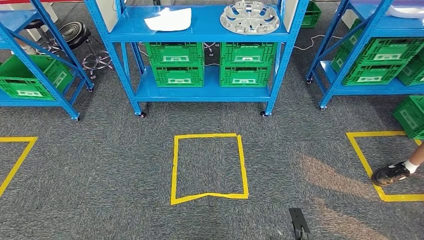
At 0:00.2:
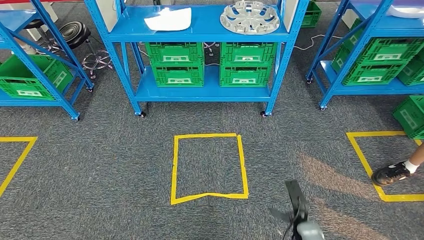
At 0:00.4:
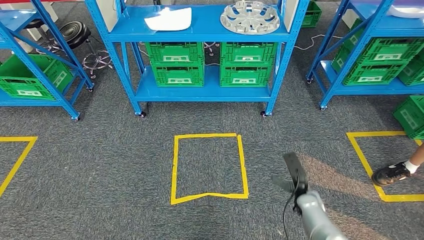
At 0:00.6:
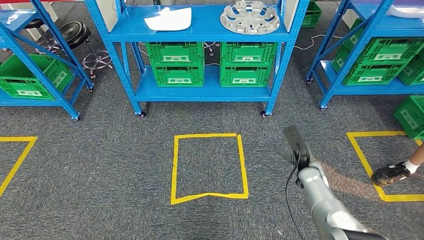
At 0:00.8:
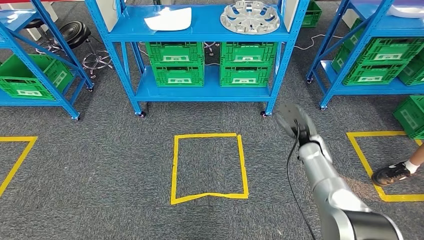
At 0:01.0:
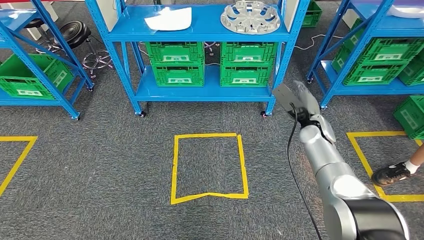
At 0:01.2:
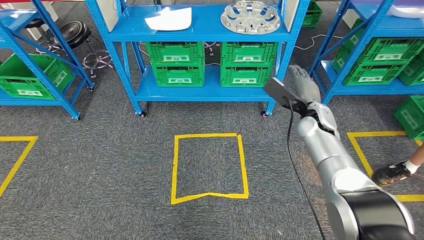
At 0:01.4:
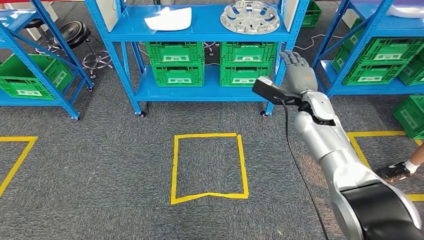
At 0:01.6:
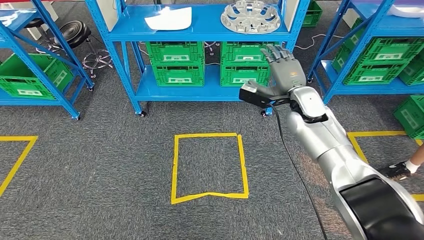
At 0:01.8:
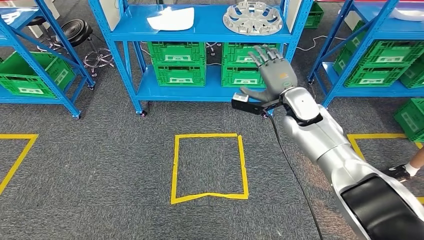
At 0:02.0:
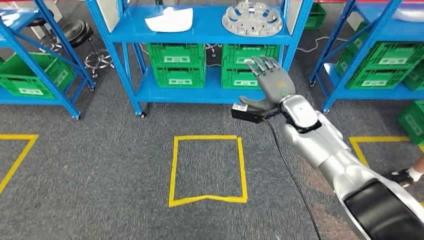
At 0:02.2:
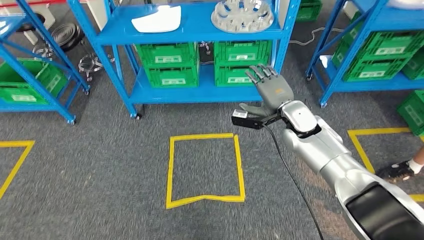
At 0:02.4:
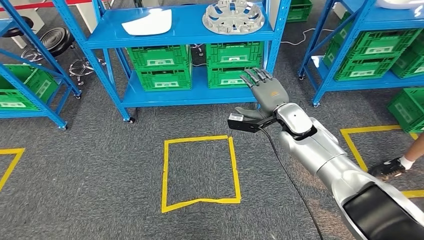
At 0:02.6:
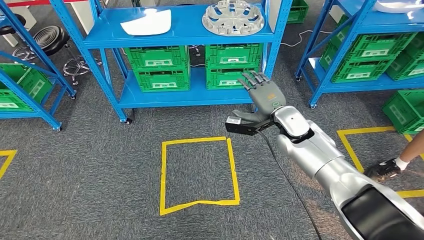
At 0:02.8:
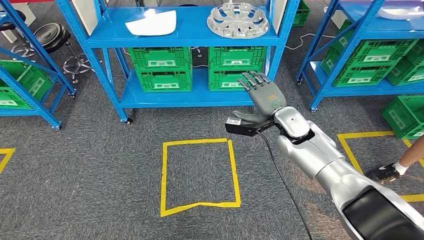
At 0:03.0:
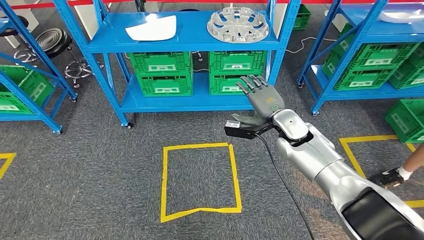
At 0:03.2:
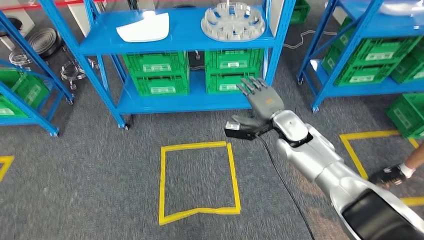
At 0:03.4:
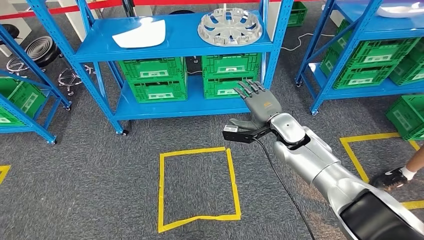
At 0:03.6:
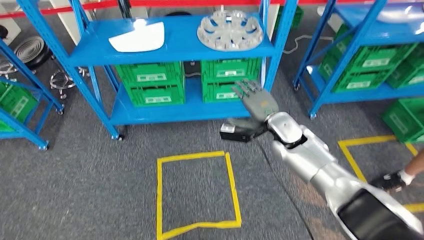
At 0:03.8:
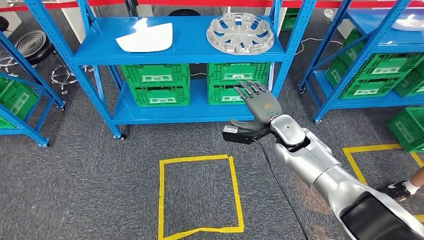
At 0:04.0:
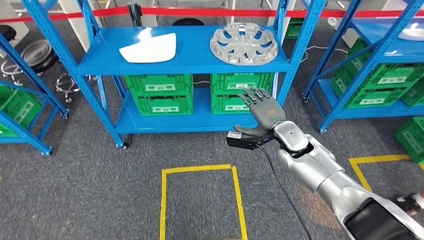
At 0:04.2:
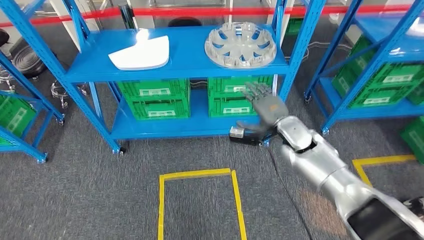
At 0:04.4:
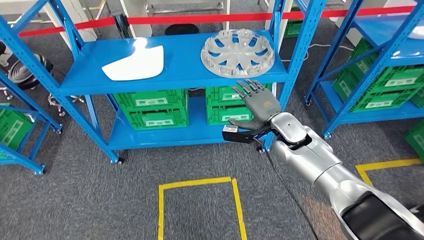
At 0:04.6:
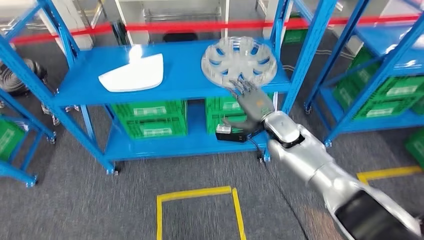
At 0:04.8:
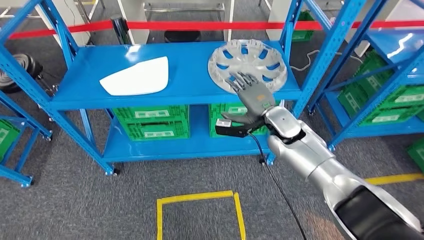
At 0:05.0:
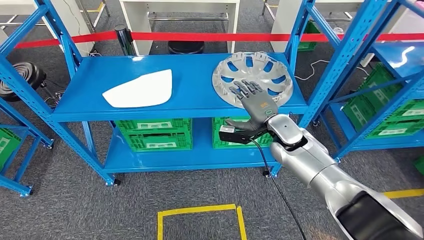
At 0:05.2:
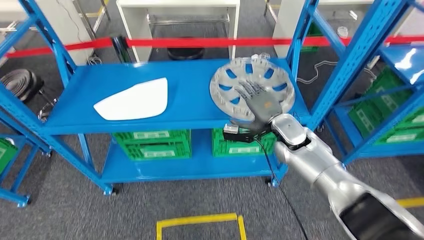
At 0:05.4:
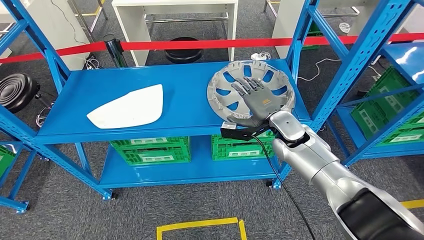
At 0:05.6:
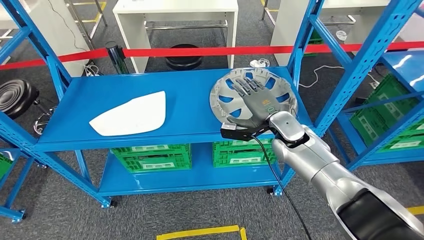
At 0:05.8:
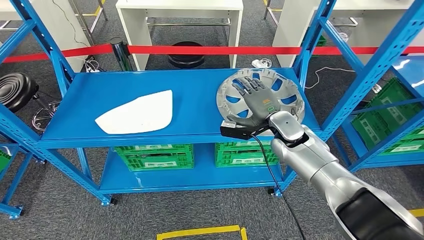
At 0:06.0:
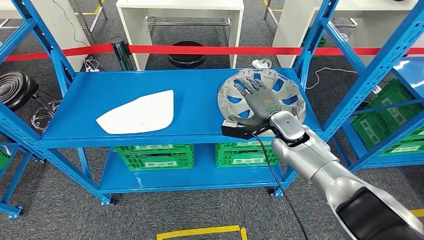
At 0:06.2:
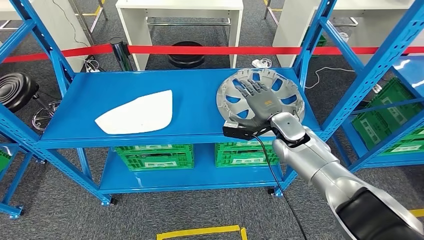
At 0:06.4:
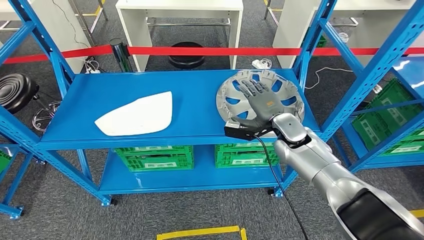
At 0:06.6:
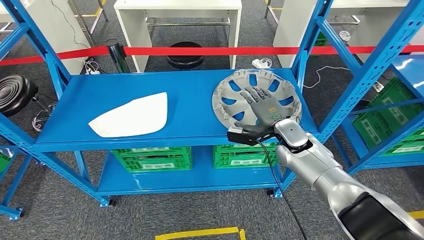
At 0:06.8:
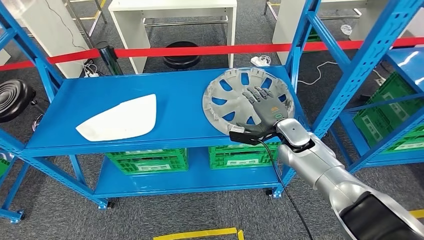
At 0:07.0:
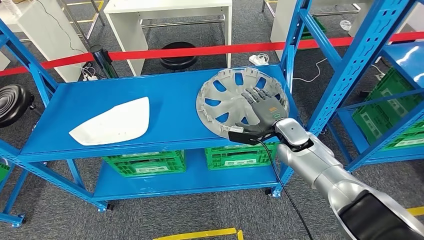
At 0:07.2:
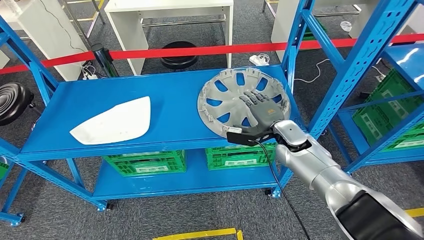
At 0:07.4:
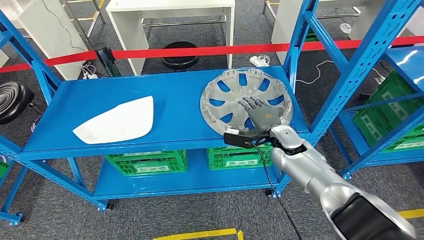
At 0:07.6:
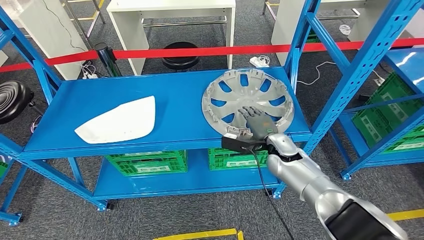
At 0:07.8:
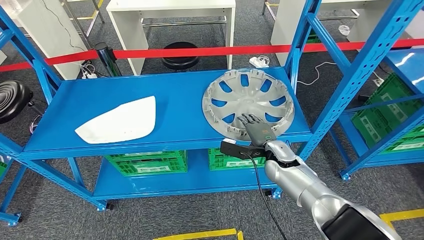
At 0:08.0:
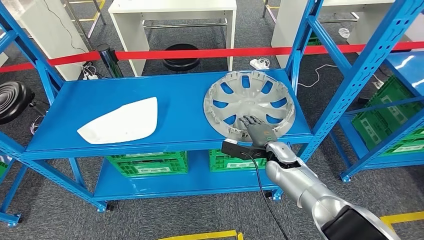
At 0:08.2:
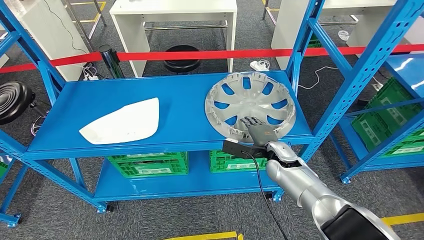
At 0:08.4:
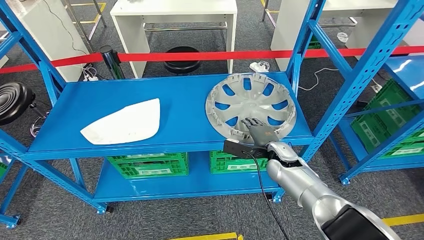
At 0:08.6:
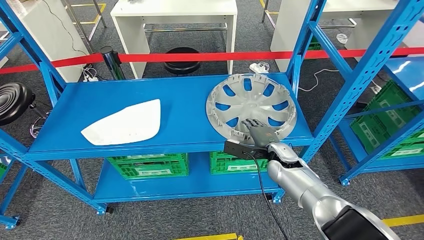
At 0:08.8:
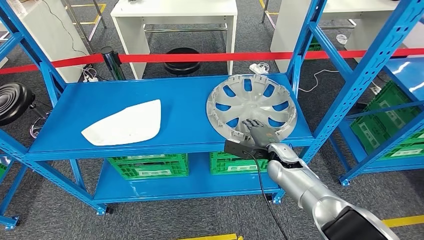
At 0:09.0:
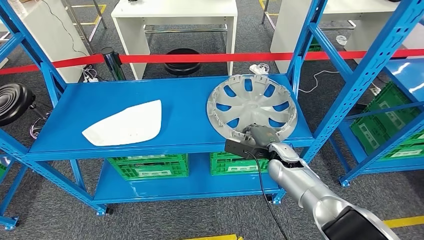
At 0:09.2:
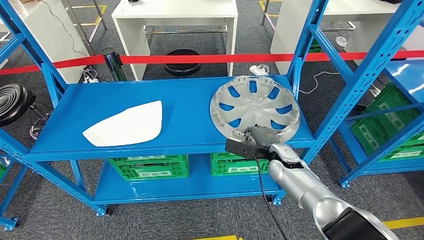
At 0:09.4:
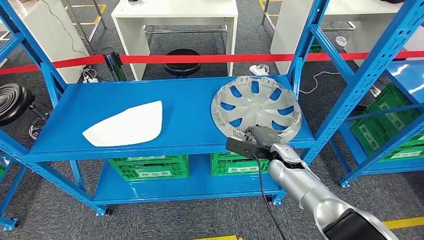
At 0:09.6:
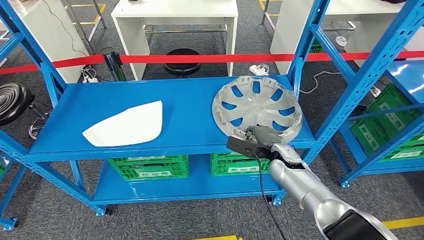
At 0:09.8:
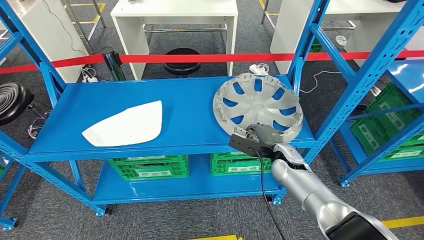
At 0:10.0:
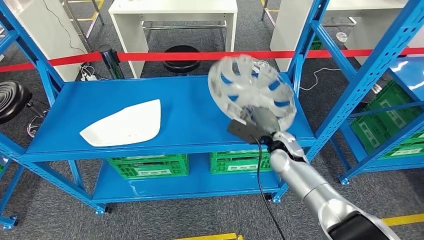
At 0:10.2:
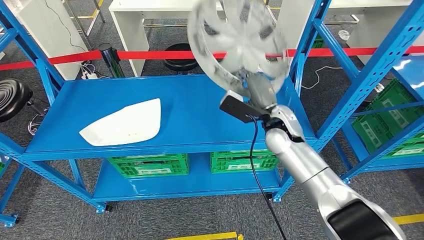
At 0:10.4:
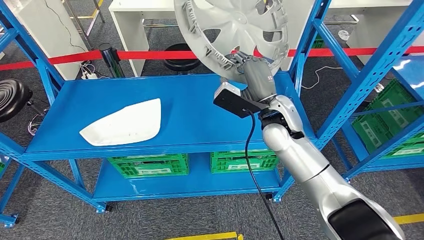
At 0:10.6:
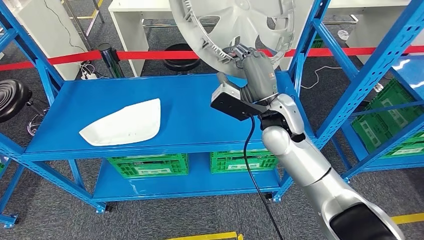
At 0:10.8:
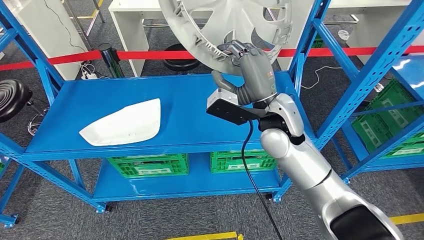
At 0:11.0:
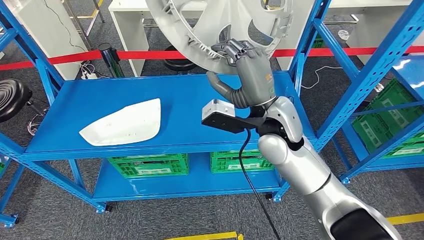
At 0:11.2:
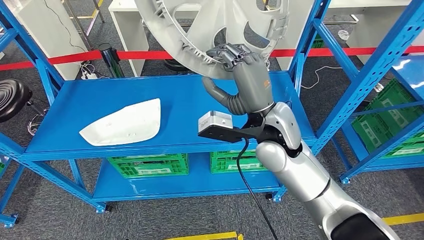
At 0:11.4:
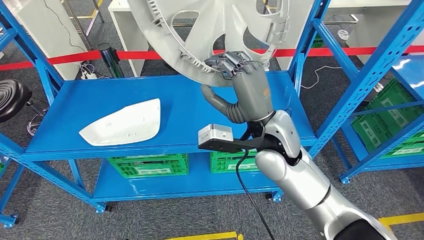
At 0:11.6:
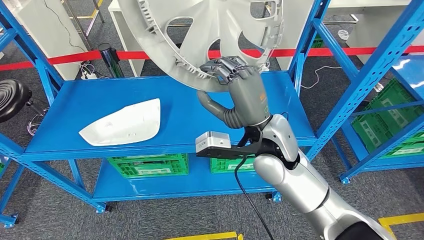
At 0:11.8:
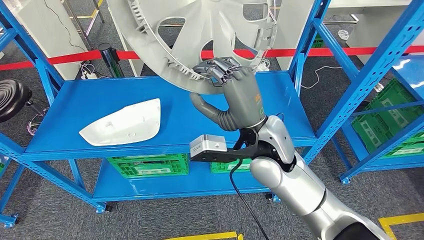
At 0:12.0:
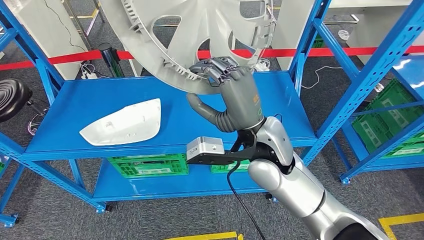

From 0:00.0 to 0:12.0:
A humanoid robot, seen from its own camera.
Step, from 0:00.0 to 0:10.8: Pick up the small component from the shelf.
From 0:00.0 to 0:01.6: The left hand heads forward, covering approximately 5 cm. The right hand shifts roughly 50 cm forward and upward.

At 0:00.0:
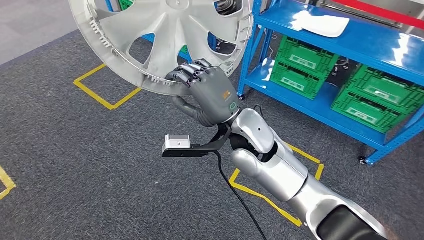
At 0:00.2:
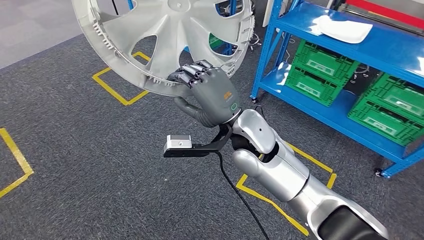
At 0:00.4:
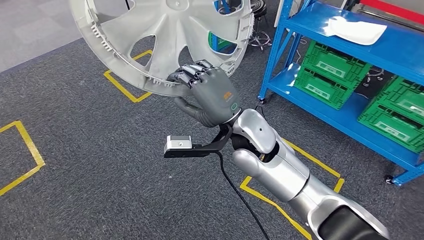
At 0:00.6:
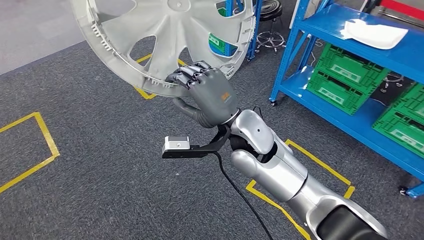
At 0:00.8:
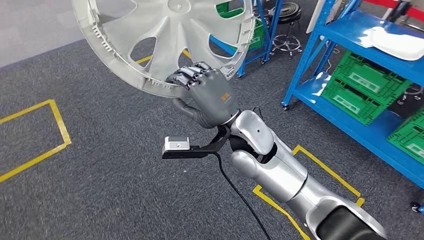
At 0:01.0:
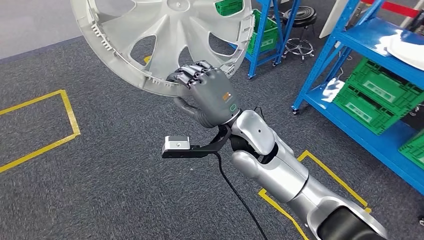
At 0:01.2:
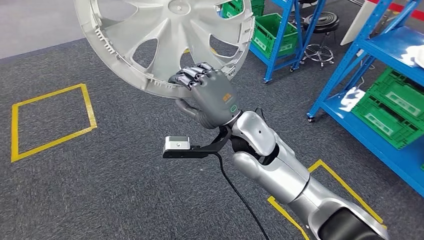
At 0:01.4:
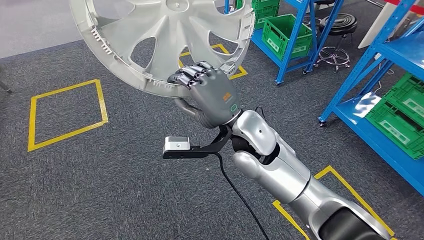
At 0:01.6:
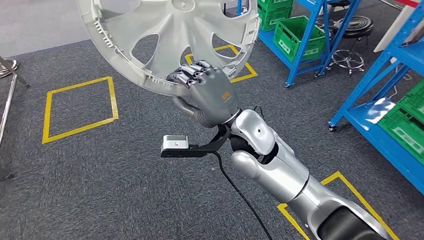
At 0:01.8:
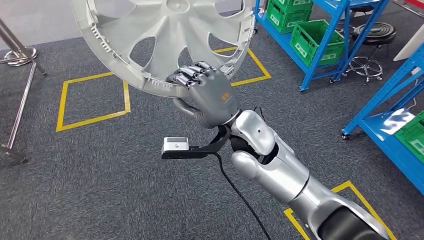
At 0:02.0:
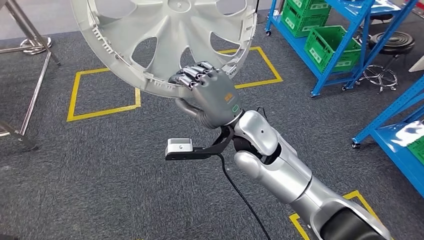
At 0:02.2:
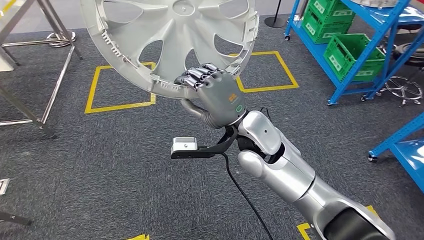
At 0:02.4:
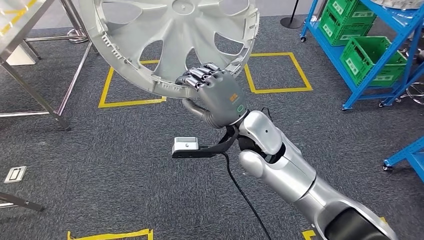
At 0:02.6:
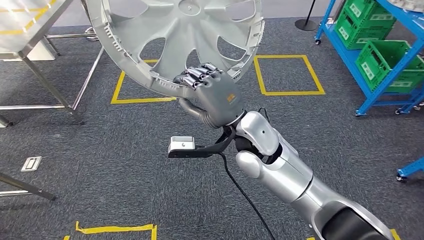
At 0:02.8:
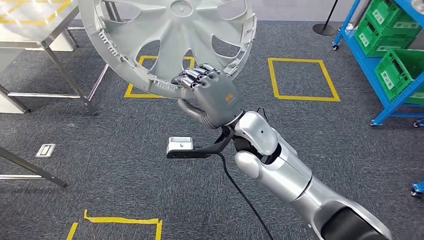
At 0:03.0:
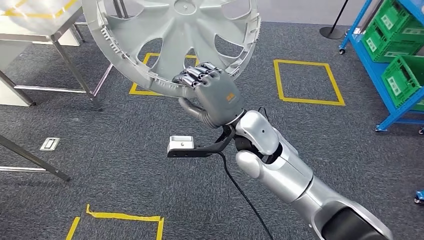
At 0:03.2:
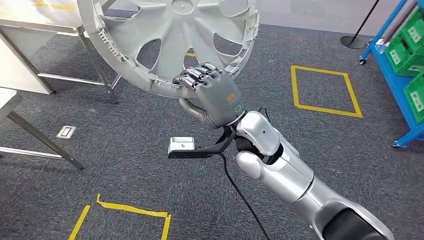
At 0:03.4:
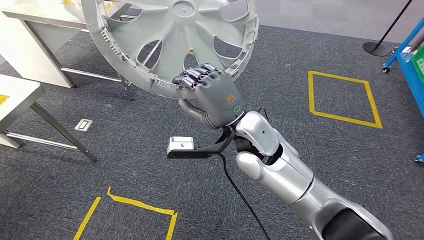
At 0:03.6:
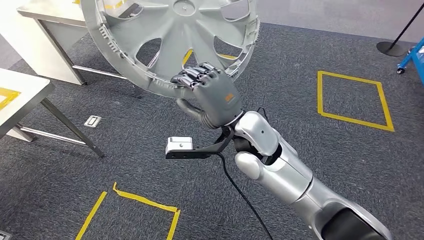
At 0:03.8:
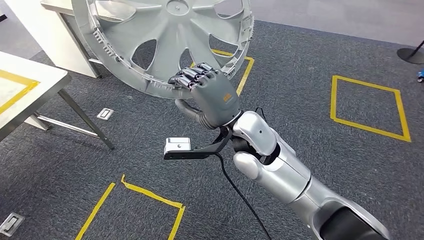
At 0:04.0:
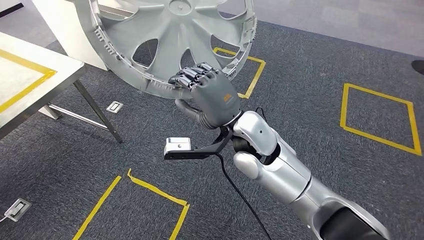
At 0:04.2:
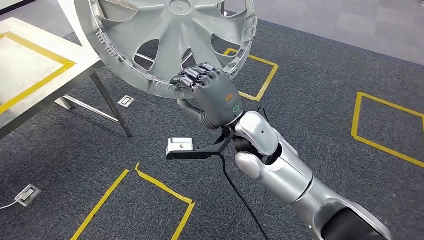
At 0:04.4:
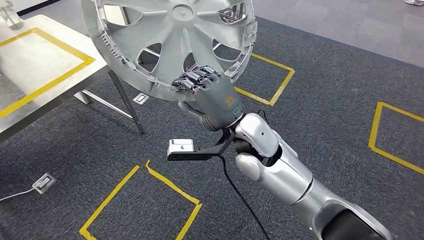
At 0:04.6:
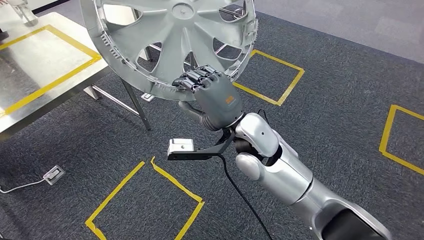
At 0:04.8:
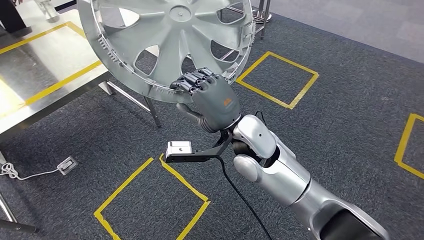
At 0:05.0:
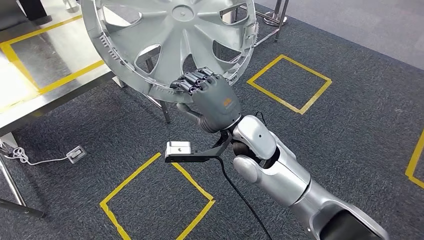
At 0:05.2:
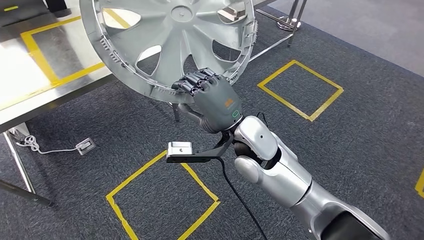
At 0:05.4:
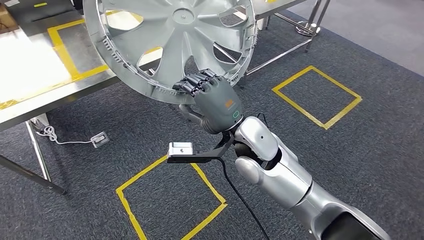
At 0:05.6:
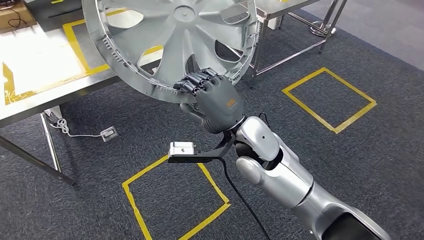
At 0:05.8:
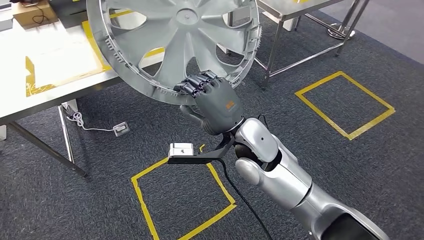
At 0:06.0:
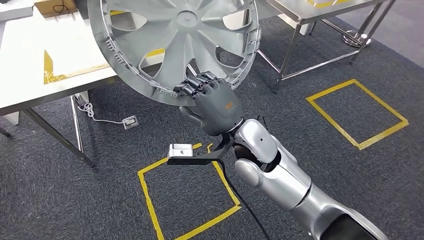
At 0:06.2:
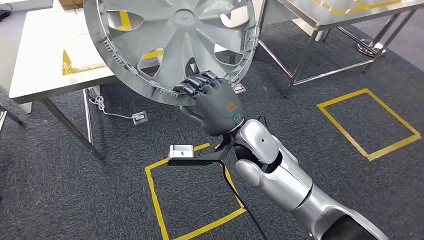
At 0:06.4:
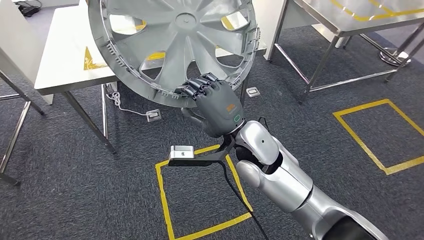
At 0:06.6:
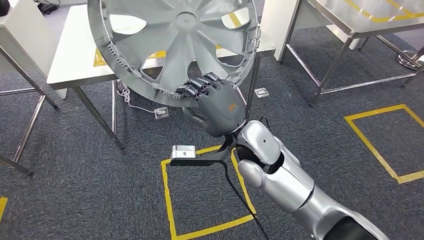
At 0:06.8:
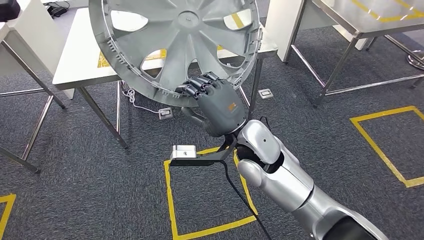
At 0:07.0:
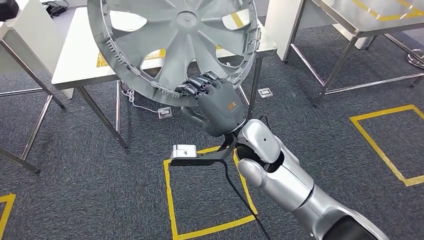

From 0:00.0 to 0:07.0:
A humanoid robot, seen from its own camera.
Step, from 0:00.0 to 0:06.6: Move the small component to the workbench.
